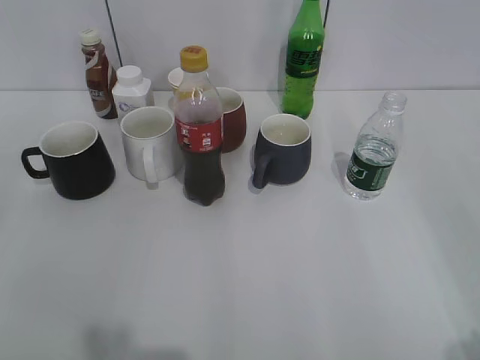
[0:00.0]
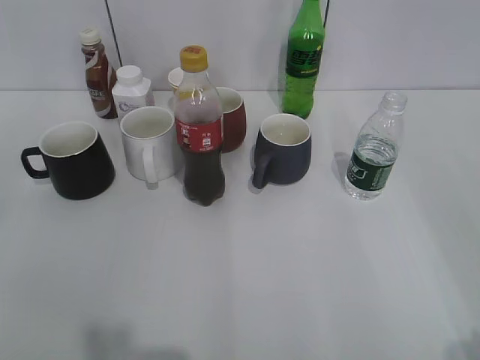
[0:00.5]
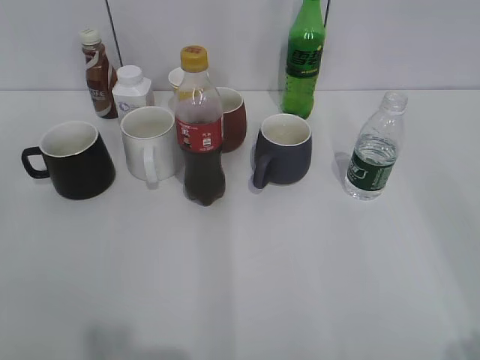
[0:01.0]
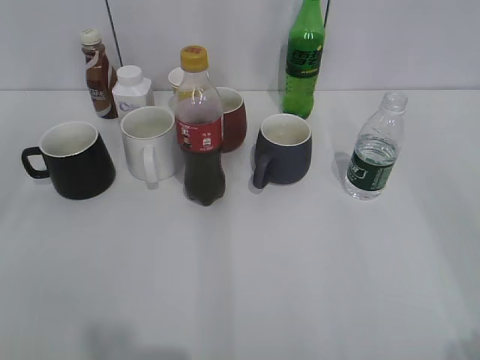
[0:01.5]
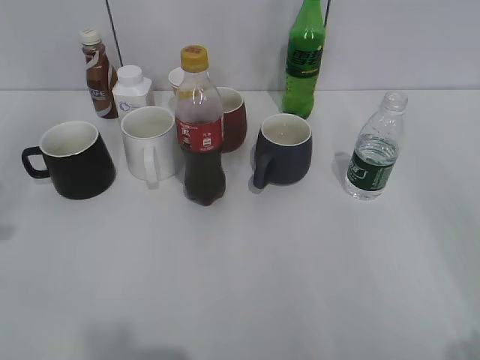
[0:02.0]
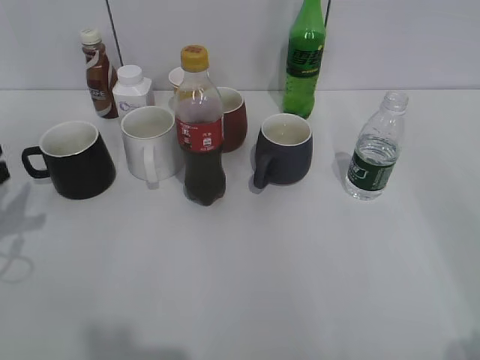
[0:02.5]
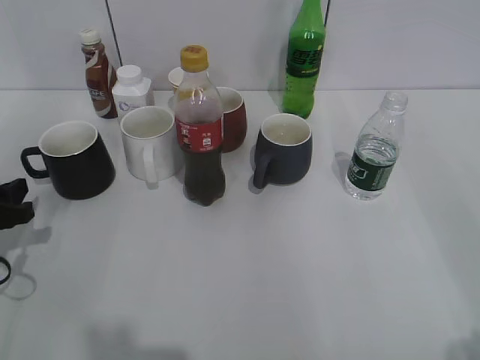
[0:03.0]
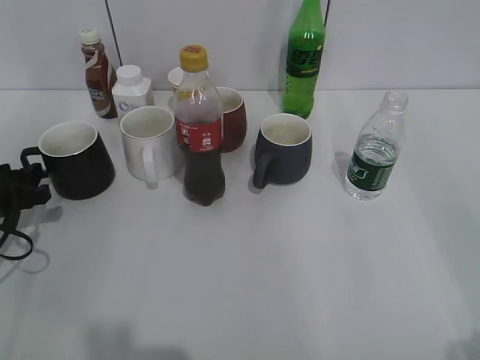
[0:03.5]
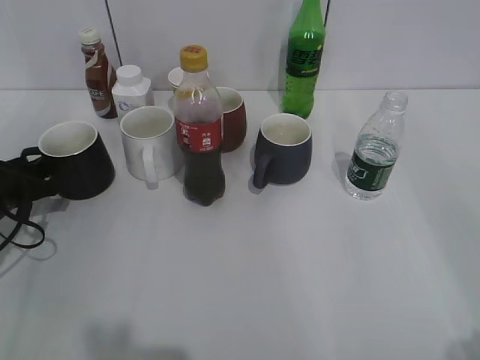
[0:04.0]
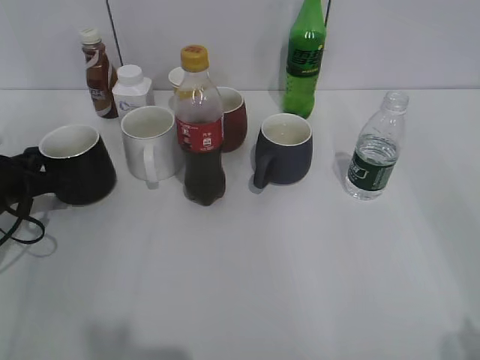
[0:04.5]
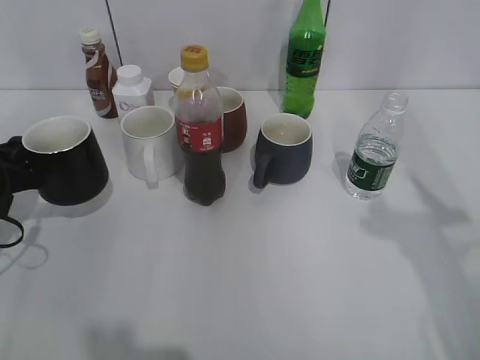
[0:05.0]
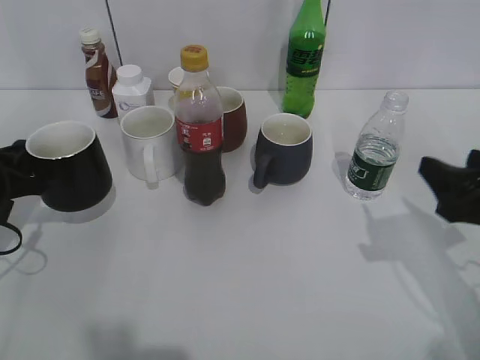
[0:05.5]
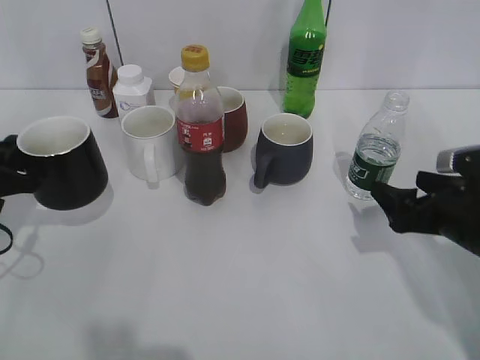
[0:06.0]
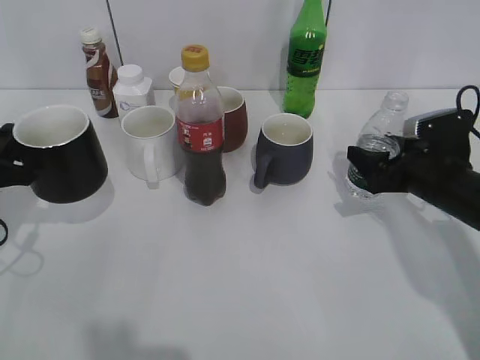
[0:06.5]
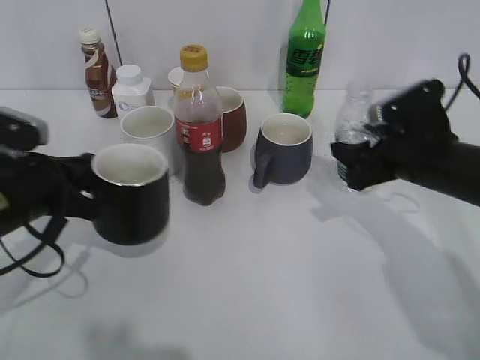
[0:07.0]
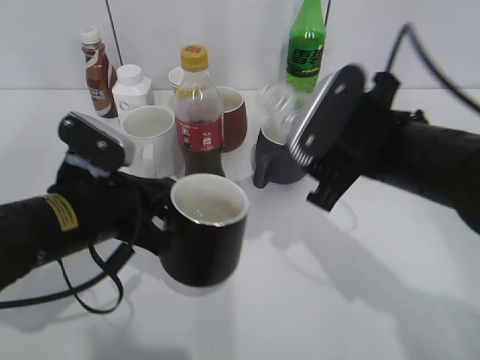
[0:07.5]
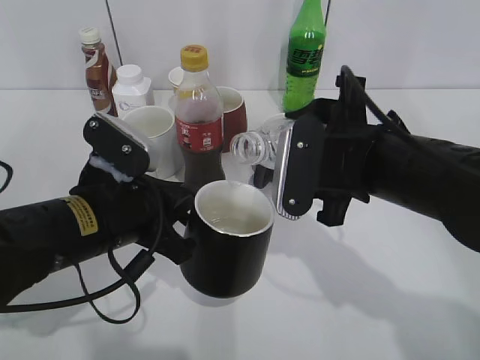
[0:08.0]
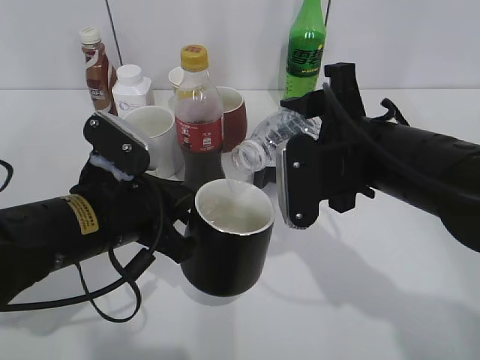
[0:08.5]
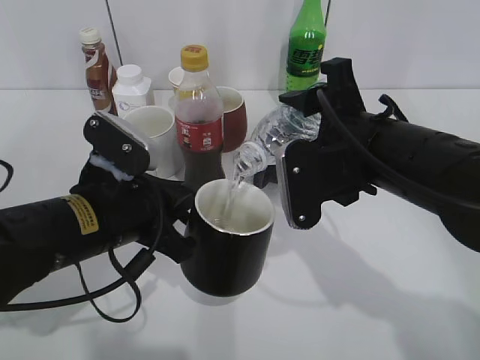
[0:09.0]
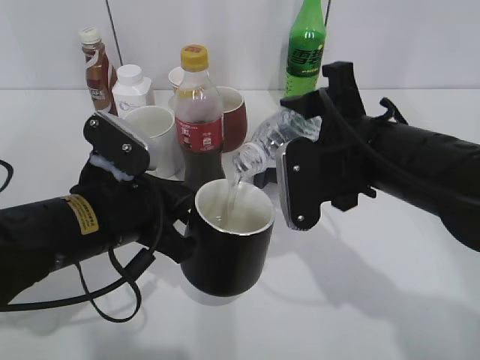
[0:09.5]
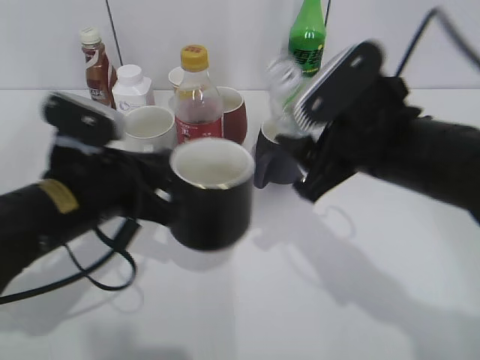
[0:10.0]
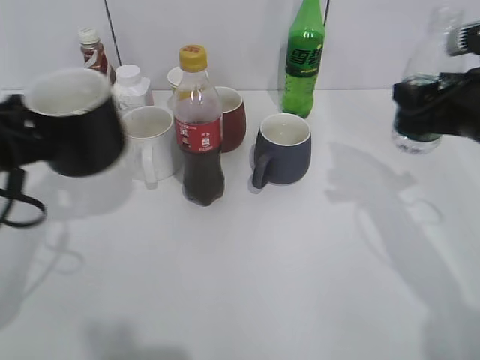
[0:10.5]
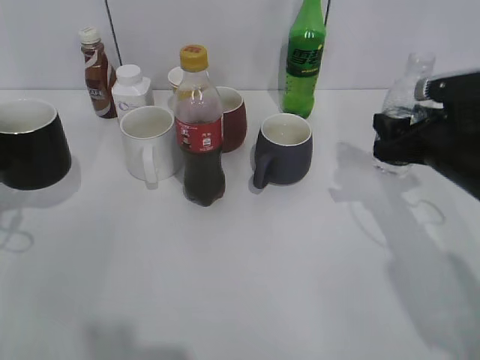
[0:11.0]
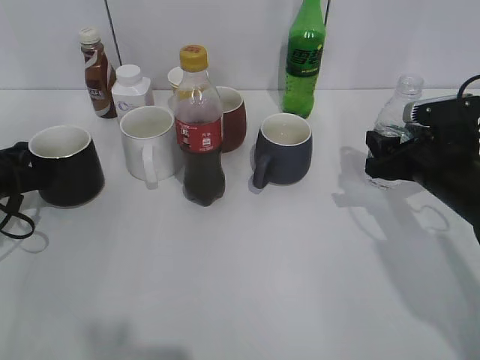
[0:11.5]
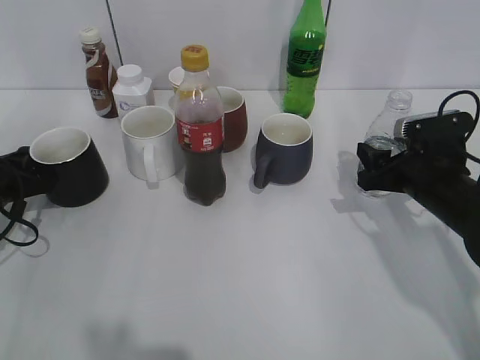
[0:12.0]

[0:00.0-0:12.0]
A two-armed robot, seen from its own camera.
Step, 1.5 to 4.0 s: Grasp the black cup with left gripper.
Step, 4.5 to 5.0 s: Lift the black cup with left gripper.
Step, 5.5 to 6.5 s: Grasp the bottle with water with right gripper.
Step, 7.0 to 9.5 s: Pour the water from bottle to cup with right gripper.
2.0 to 4.0 s: The left gripper travels downward and forward by some 25 cm.
4.0 to 6.0 s: The right gripper heads forward and downward, covering about 30 cm, and opens up. Meanwhile the left gripper shifts approximately 5 cm upward, and closes up.
6.0 to 8.0 s: The left gripper is displaced to the right by some 15 cm. Meanwhile the right gripper goes approximately 15 cm to the left and upward, and closes up.
10.0 to 12.0 s: The right gripper goes roughly 20 cm downward, to the right and forward. The left gripper is displaced to the left, downward and forward by roughly 20 cm.

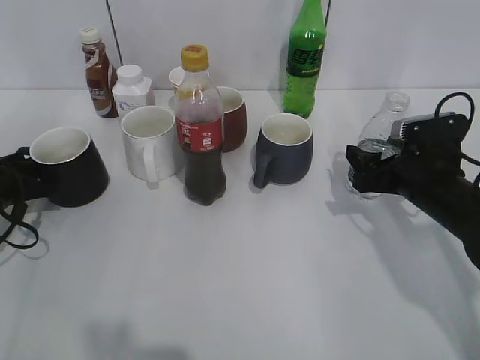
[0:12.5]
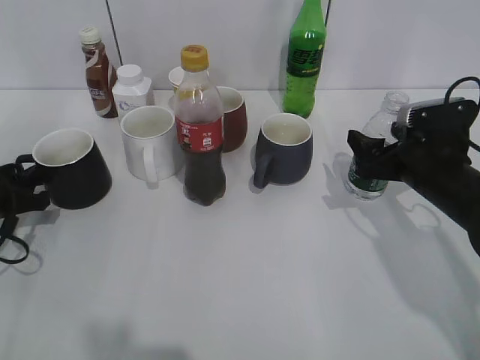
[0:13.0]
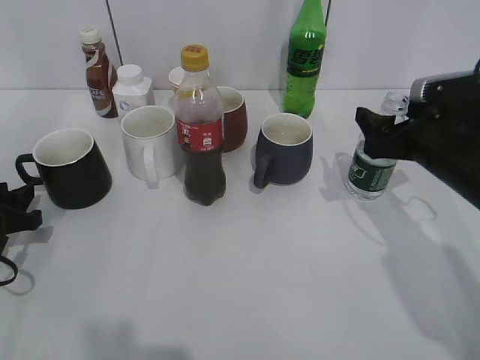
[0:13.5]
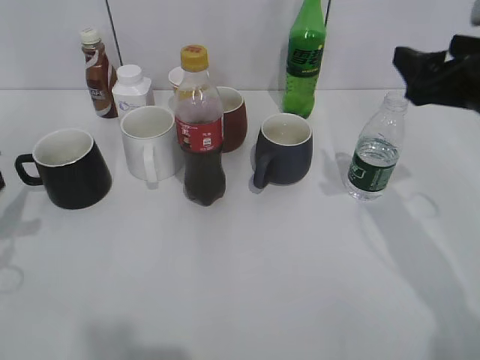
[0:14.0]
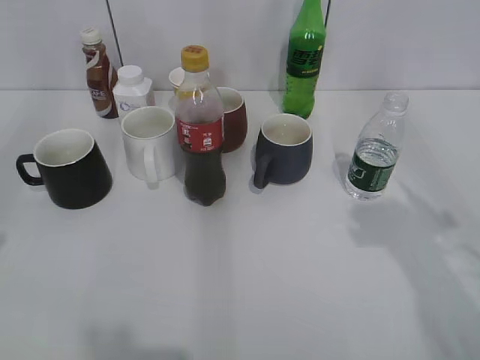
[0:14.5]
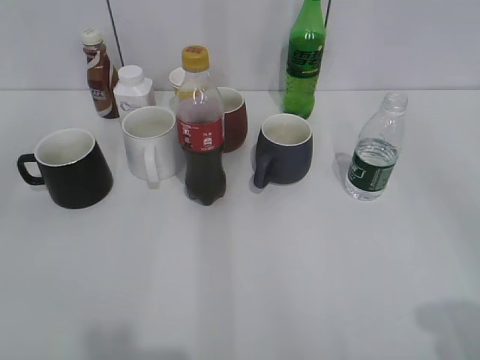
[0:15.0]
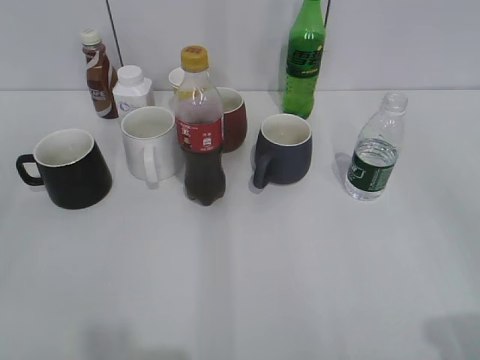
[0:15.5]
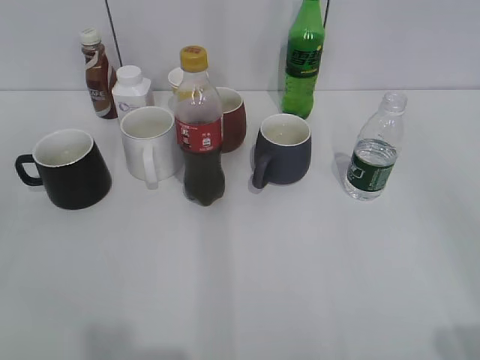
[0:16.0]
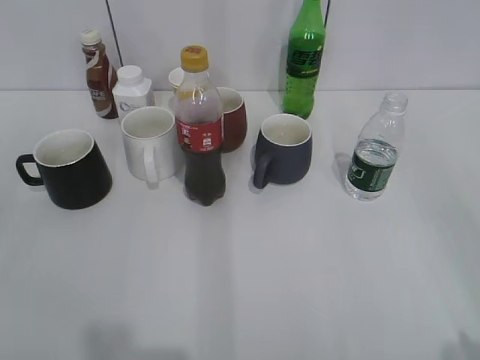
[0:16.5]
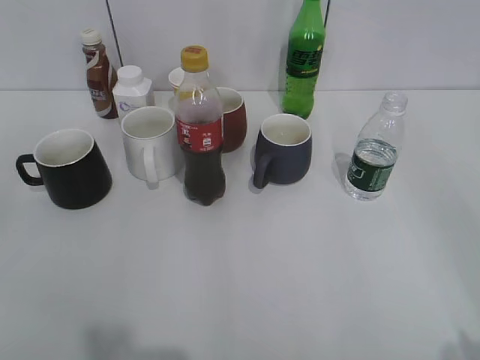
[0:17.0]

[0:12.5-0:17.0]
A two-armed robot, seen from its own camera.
12.5 to 14.5 s: The two grippers go roughly 30 cm upward and backward.
14.5 to 17.0 s: The right gripper moves backward, roughly 15 cm.

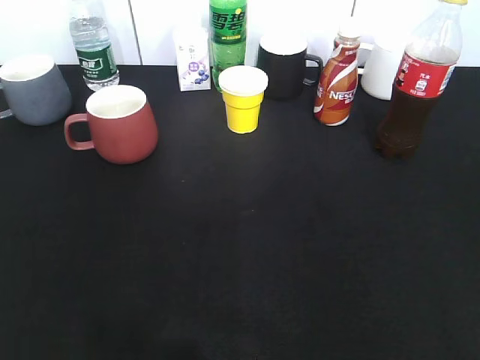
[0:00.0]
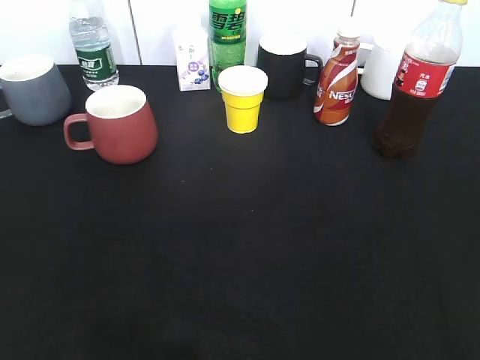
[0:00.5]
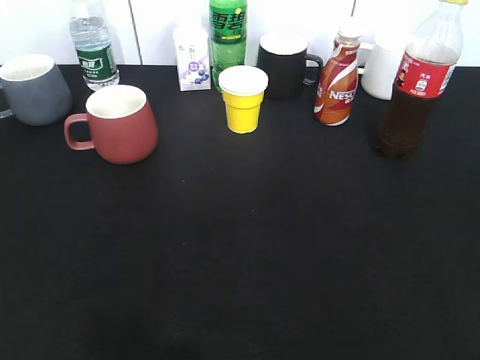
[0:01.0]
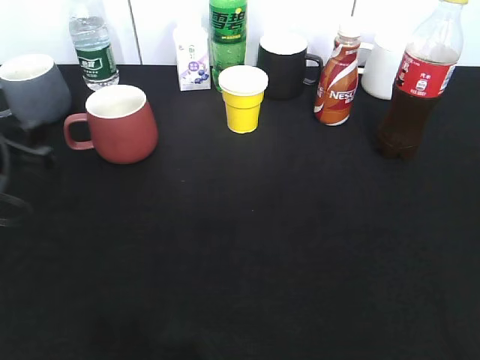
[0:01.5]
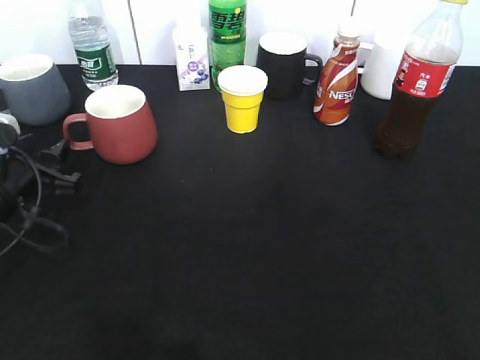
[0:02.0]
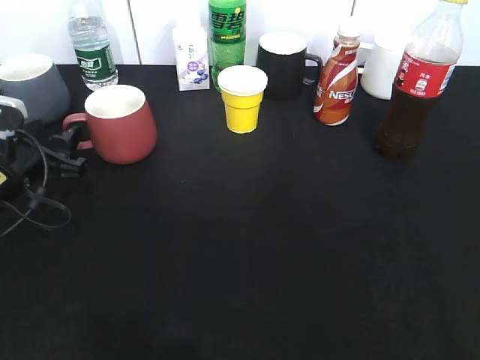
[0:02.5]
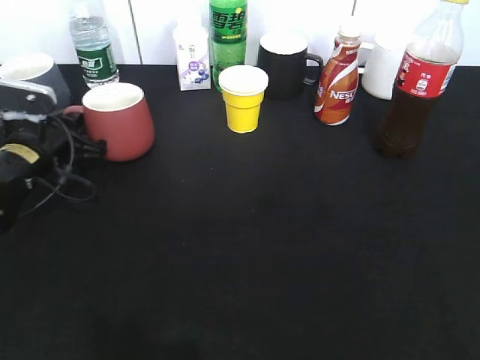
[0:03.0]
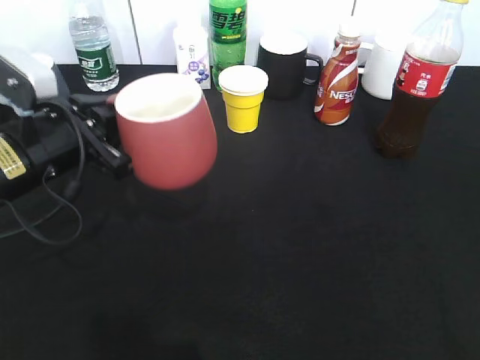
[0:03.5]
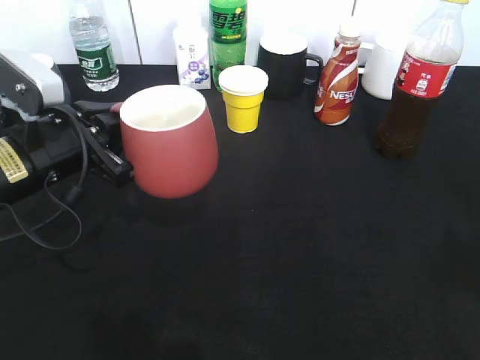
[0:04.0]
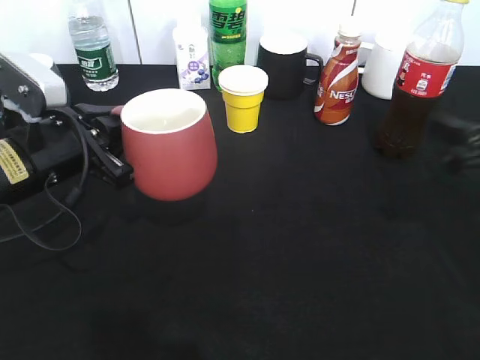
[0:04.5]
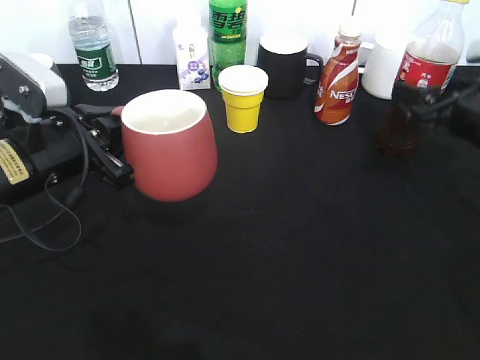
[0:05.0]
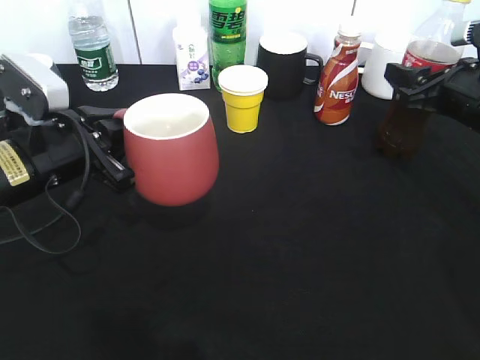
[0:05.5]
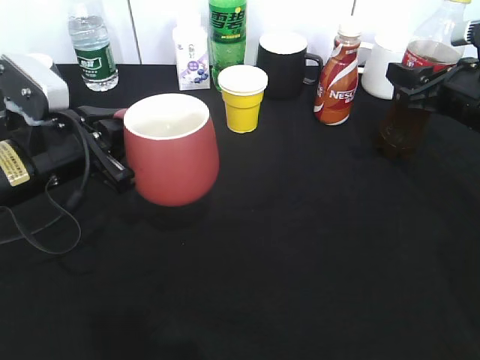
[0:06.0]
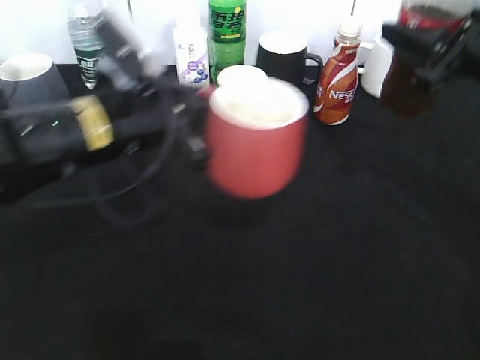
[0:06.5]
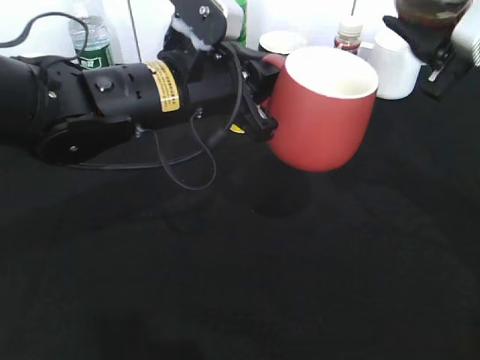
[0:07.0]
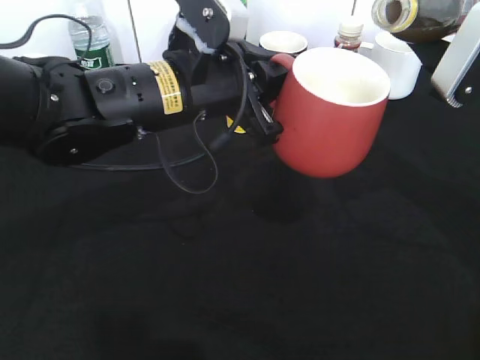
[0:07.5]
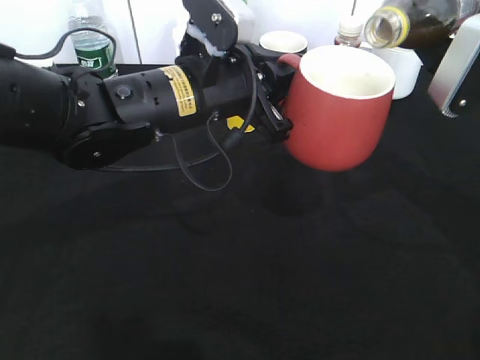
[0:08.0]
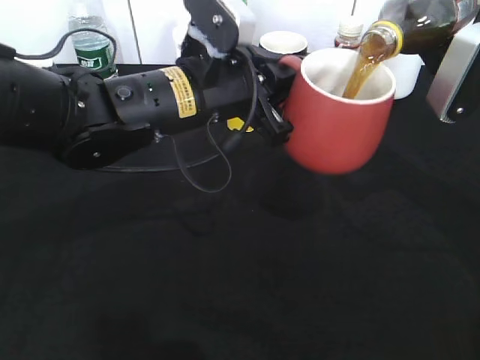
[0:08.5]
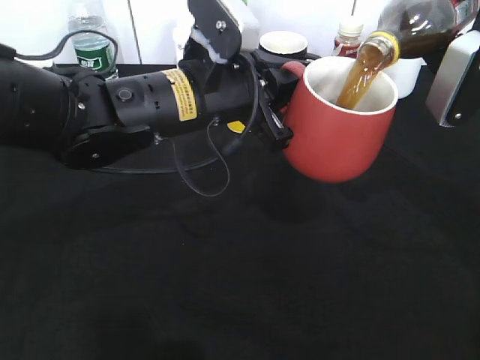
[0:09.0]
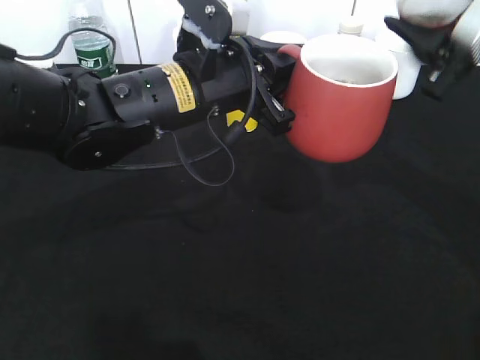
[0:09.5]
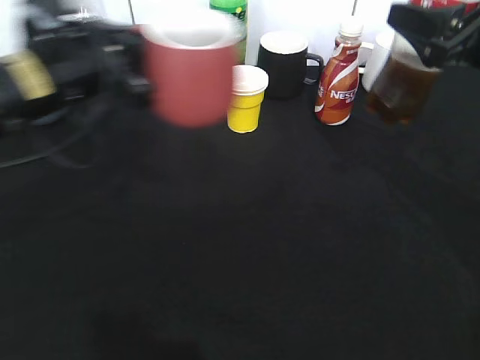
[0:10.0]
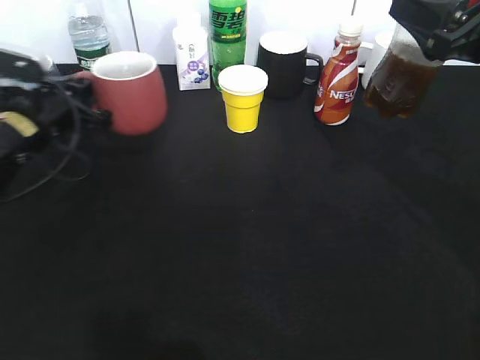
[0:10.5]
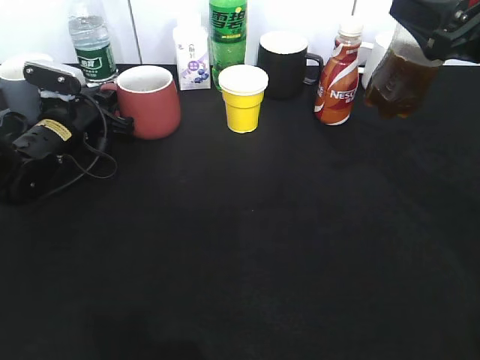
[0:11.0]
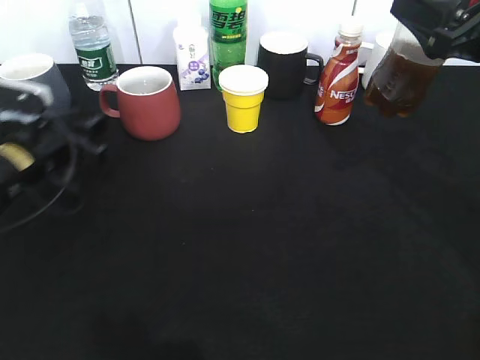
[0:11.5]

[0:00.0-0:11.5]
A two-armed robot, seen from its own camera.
Step, 1.0 to 2.5 s: Grasp the red cup with left gripper.
Step, 3.0 to 6.0 s: Grasp the bottle with cola with right gripper.
Step, 6.5 to 9.0 s: Pour the cola from bottle to cup with right gripper.
0.0 to 2.0 s: The left gripper travels forward and downward by roughly 30 cm, and opens up.
2.0 to 4.0 s: The right gripper moves forward, some 10 cm, while the left gripper shifts about 10 cm to the right and upward, goes forward and returns, roughly 10 cm each way, and closes.
4.0 to 6.0 s: The right gripper travels forward and downward by approximately 30 cm, and closes up.
6.0 to 7.5 s: The left gripper heads to the right and upward, covering some 15 cm. Meanwhile the right gripper moves upward and backward, some 10 cm.
9.5 to 11.5 s: The left gripper shifts about 25 cm to the left and downward, and opens up.
